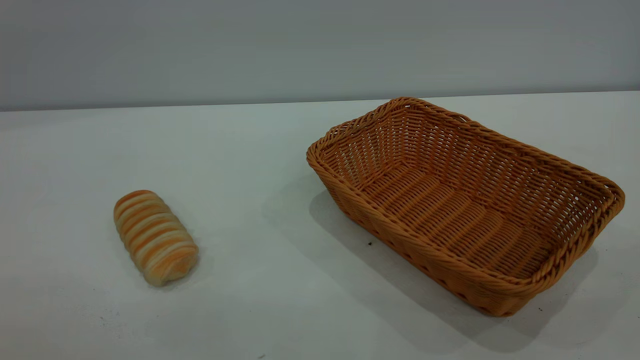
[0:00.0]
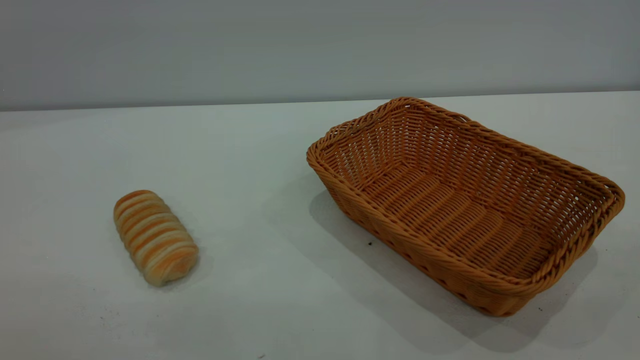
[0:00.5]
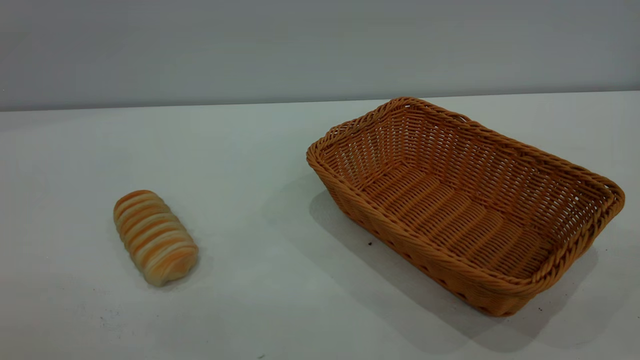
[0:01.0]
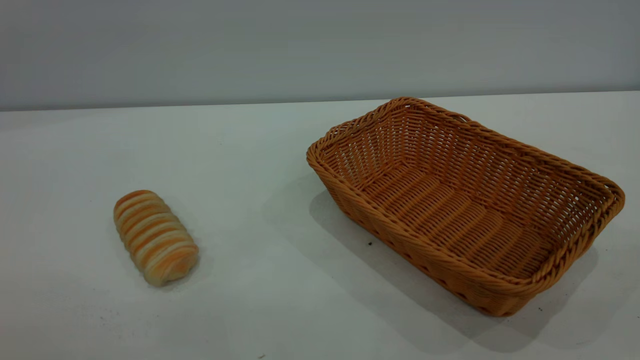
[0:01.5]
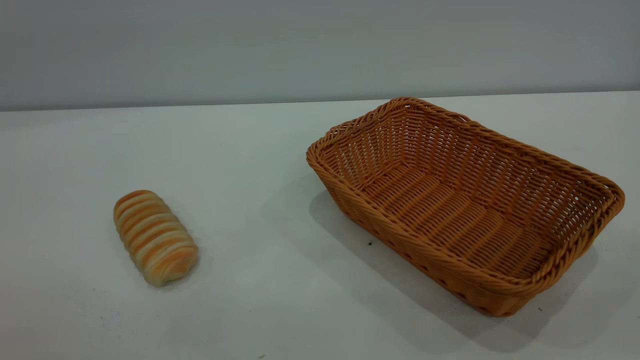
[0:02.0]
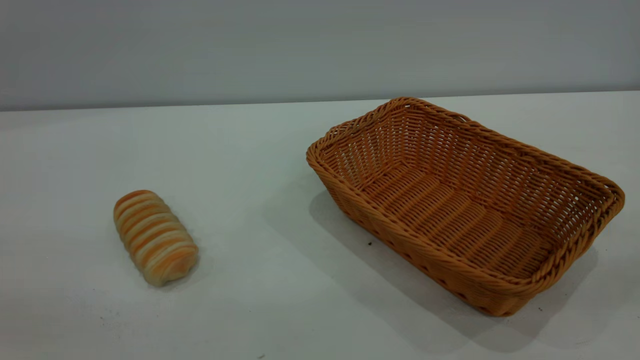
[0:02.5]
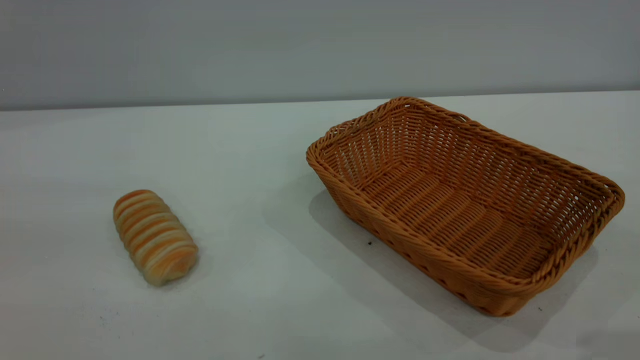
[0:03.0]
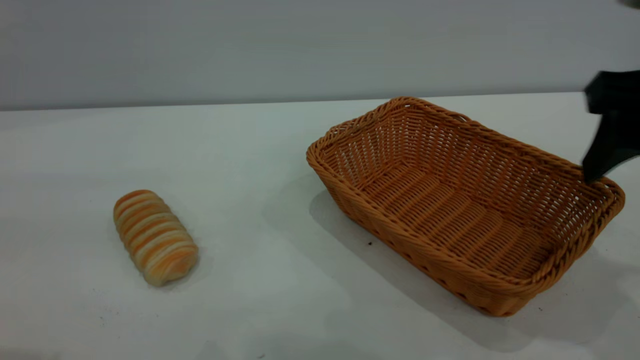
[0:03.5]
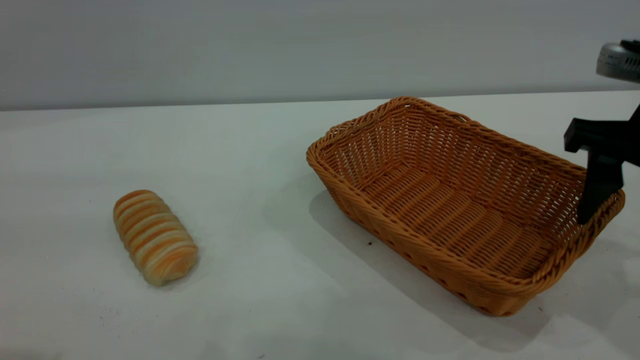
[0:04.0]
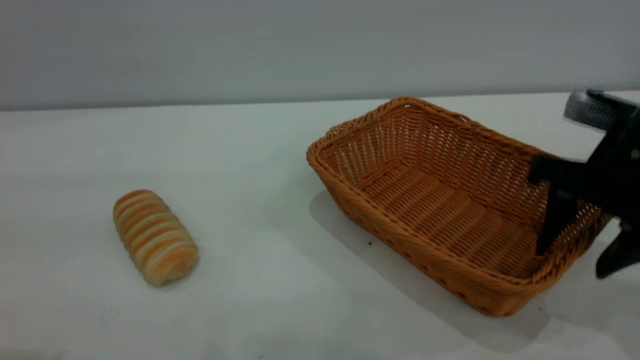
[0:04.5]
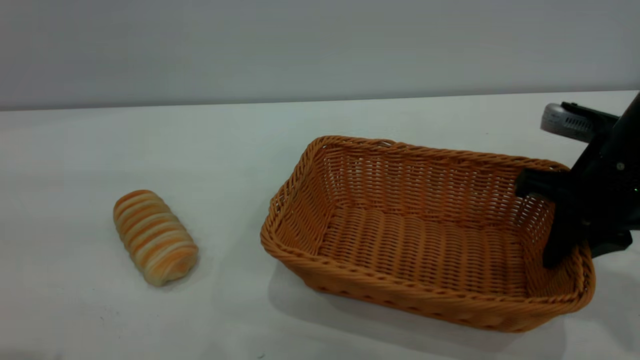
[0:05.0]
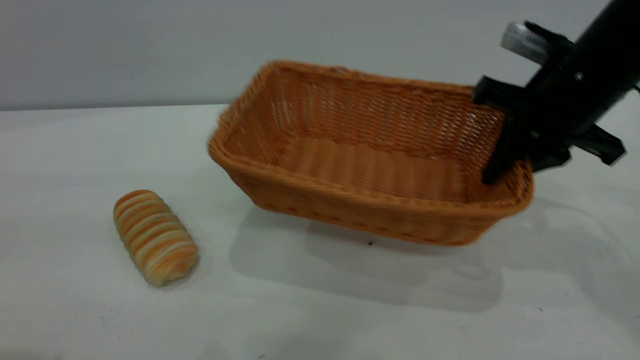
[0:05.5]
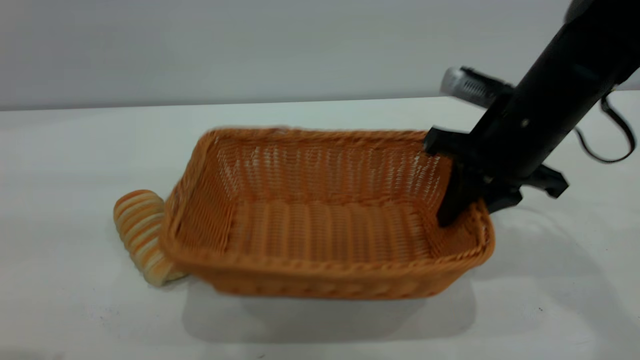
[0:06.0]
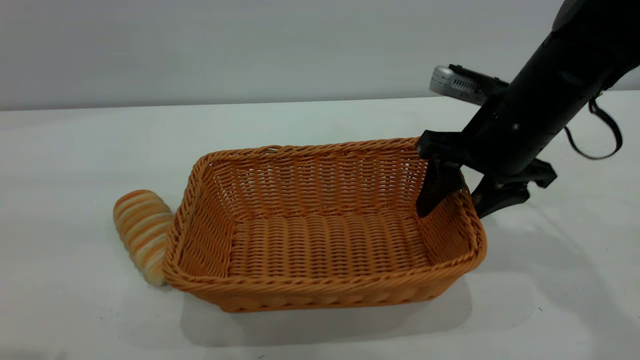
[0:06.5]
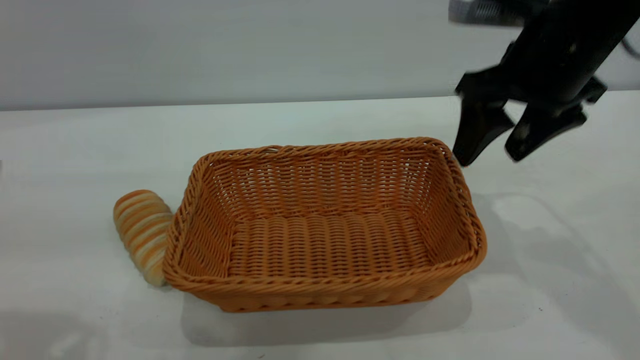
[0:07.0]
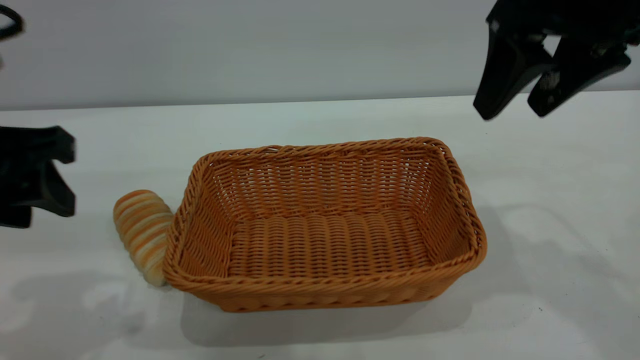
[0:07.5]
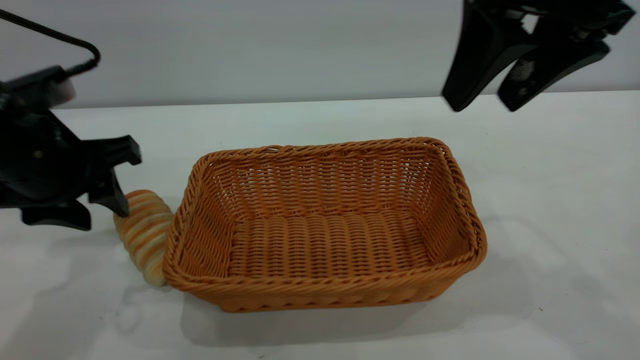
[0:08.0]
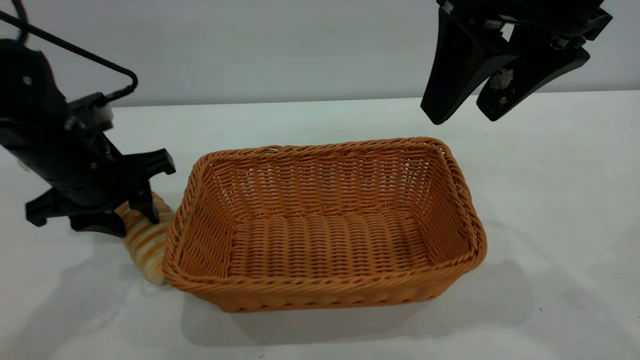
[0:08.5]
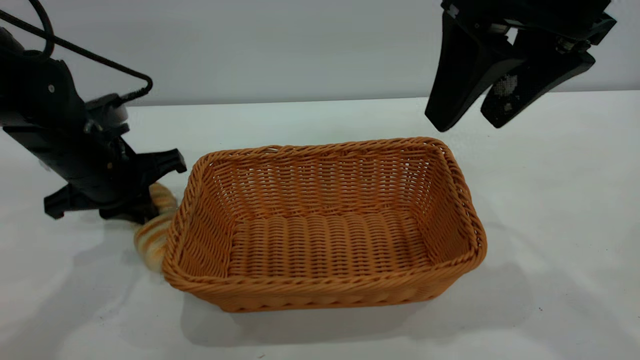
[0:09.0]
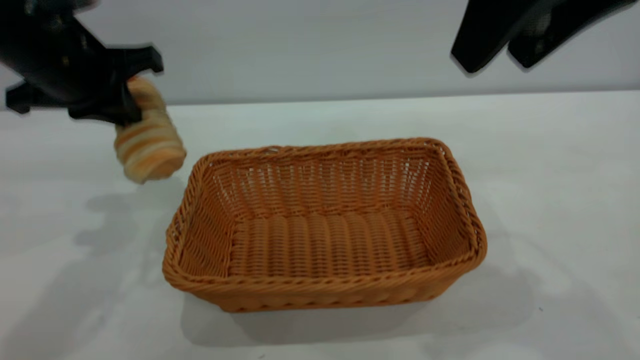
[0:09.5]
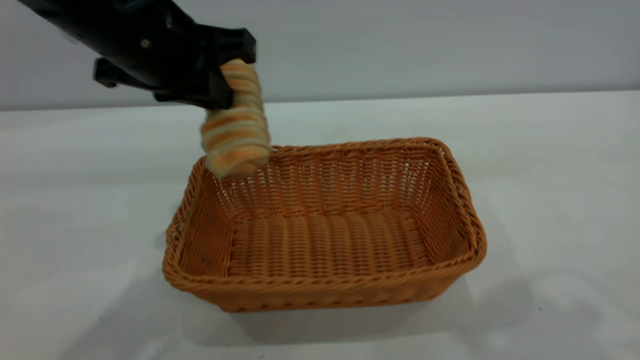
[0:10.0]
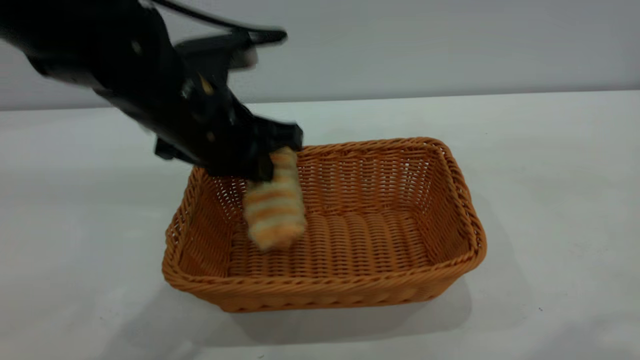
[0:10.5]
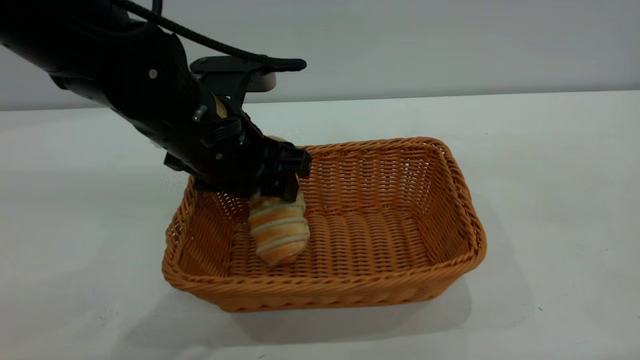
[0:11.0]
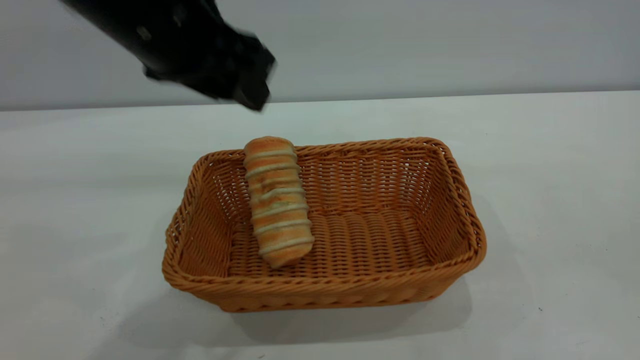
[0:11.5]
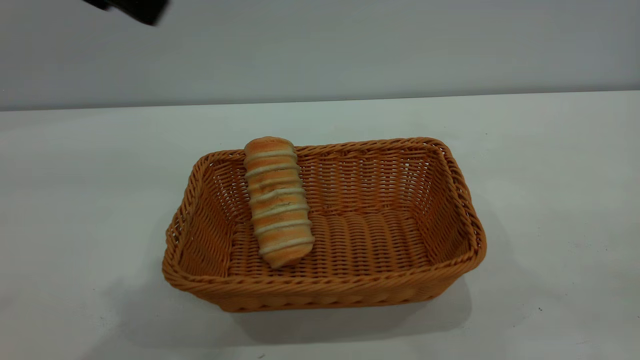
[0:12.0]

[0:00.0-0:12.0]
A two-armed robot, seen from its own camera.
Task of the whole recording: One hand grasps the yellow basket and places it in the middle of the table, while the other hand picks up the long bread and puts it into the yellow basket.
Step, 0:00.0 to 0:06.5: Move the basket to the center of view.
Step, 0:09.5 to 0:11.0: place the bread into the basket.
0:02.0 to 0:04.0: The right gripper heads forward and downward, covering approximately 30 cm.
0:04.0 to 0:06.0: The right gripper moves to the left, forward and downward, roughly 10 cm, and closes its fingers.
0:06.0 to 0:08.0: The left gripper shifts some 20 cm downward and forward; the right gripper goes about 15 cm upward, and opens up.
0:08.0 to 0:10.0: The left gripper goes roughly 15 cm to the right and upward, and closes; the right gripper is displaced upward and backward by some 15 cm.
0:10.0 to 0:12.0: The right gripper shifts some 20 cm backward, to the right and downward. The left gripper travels upward and backward by approximately 15 cm, and opens.

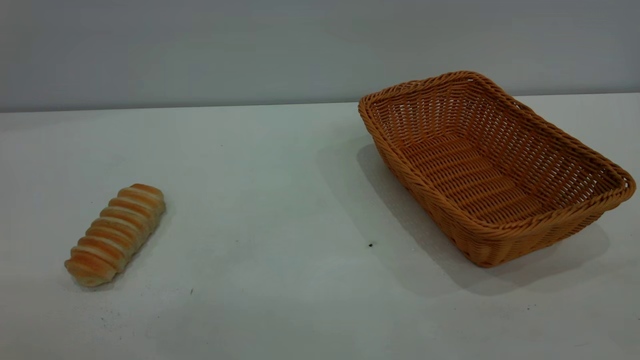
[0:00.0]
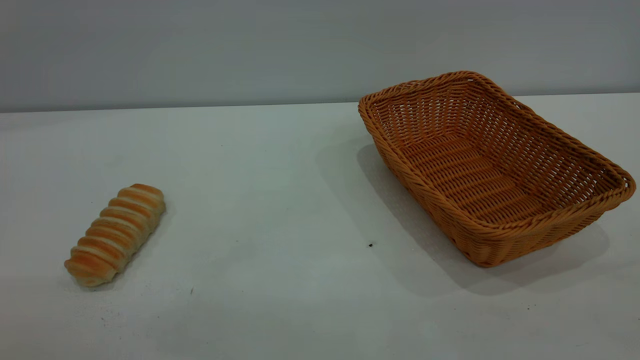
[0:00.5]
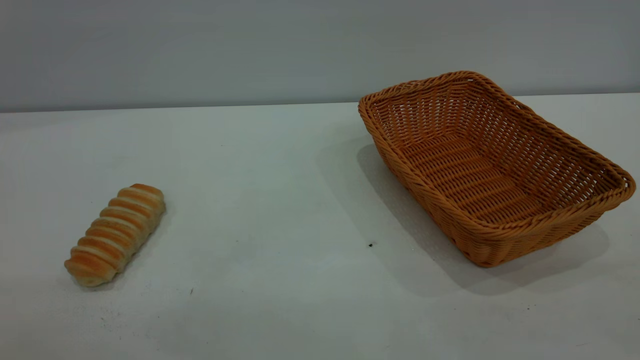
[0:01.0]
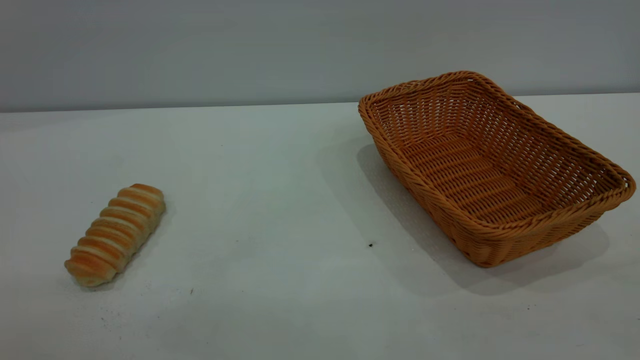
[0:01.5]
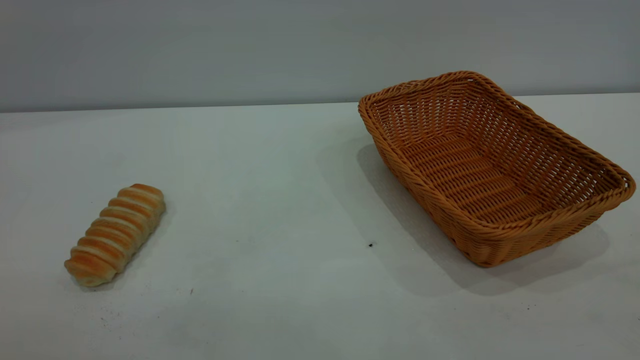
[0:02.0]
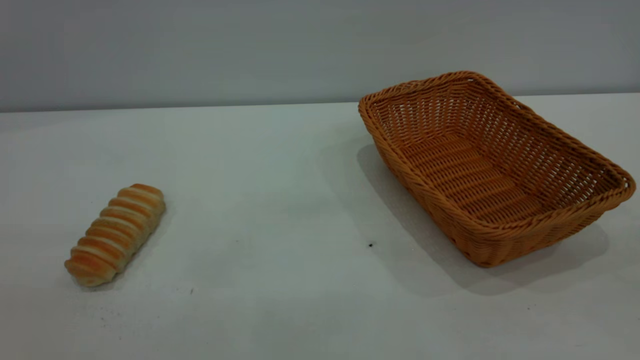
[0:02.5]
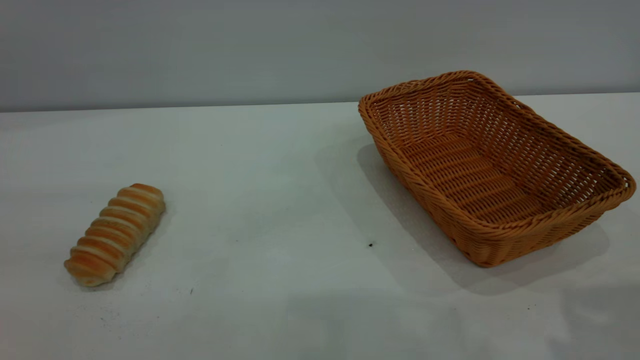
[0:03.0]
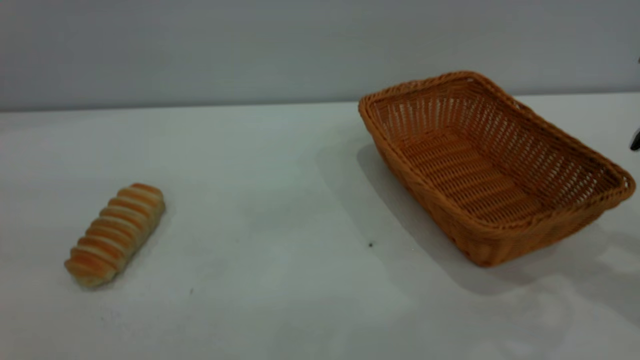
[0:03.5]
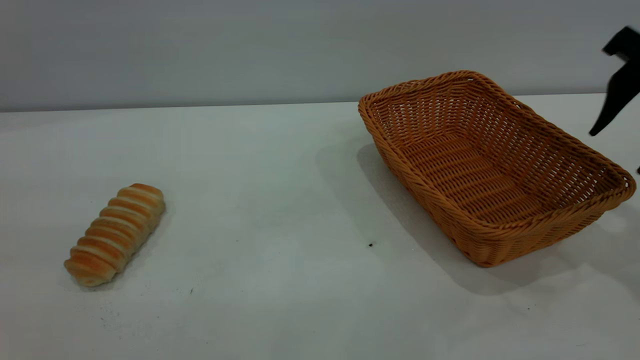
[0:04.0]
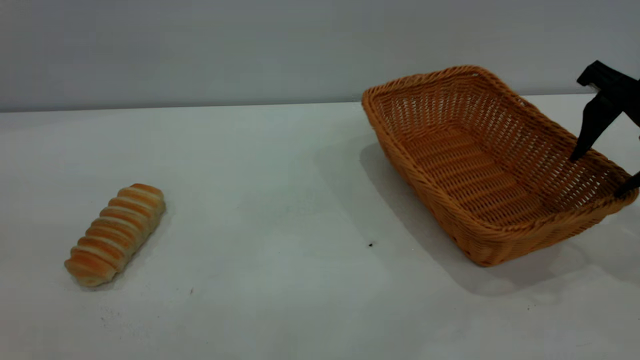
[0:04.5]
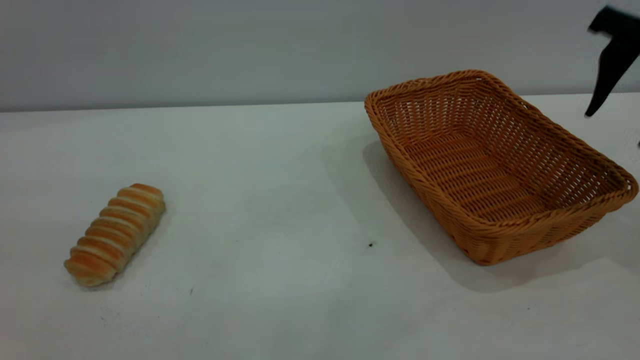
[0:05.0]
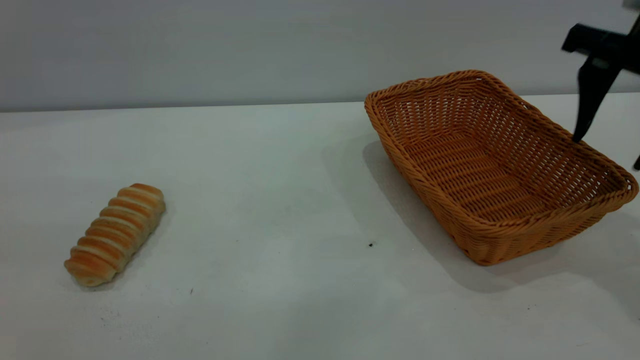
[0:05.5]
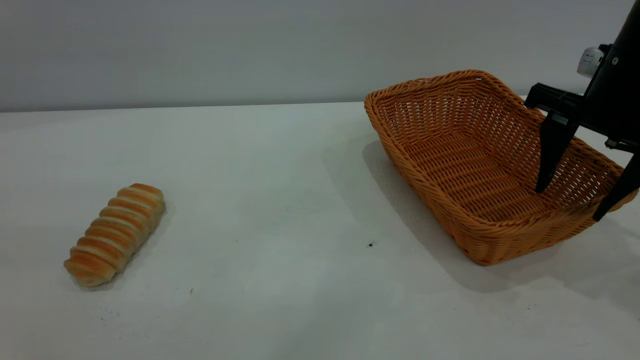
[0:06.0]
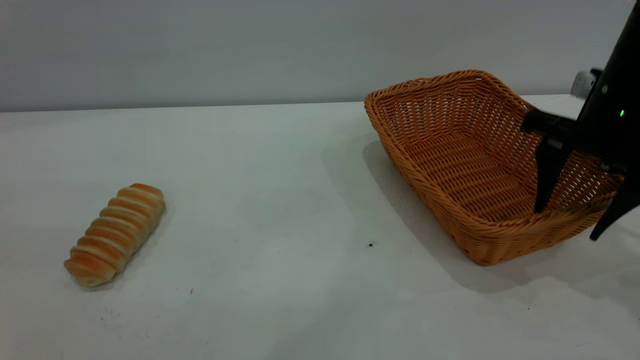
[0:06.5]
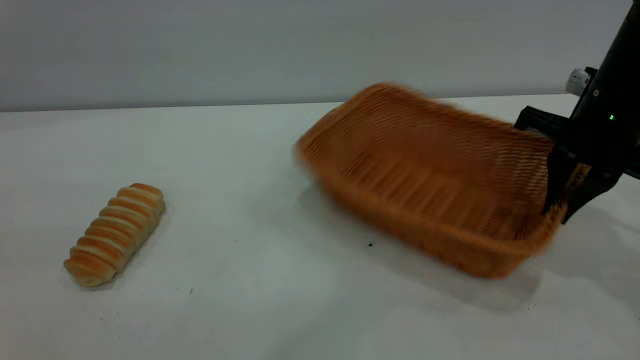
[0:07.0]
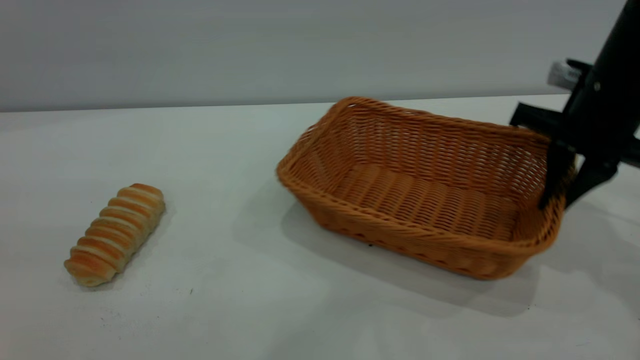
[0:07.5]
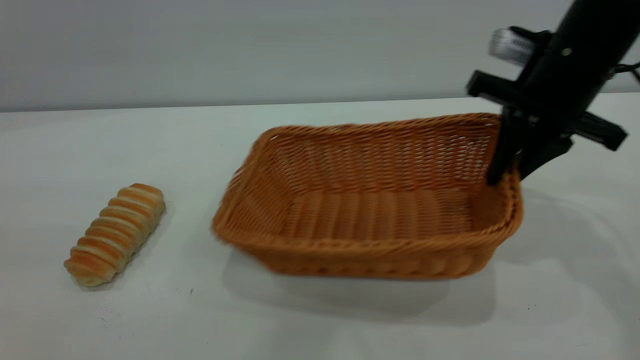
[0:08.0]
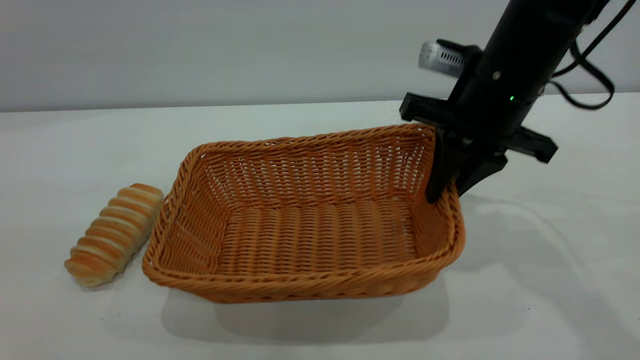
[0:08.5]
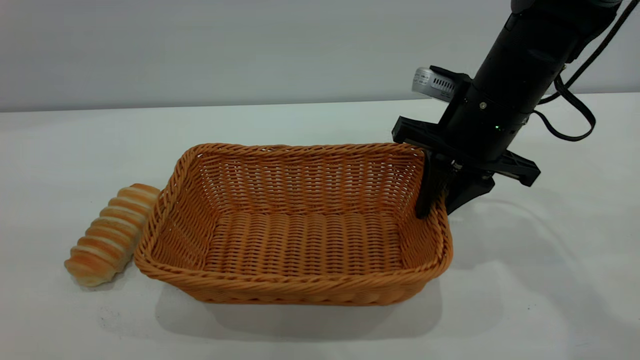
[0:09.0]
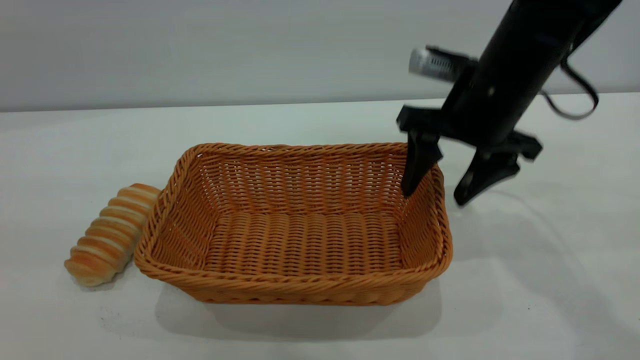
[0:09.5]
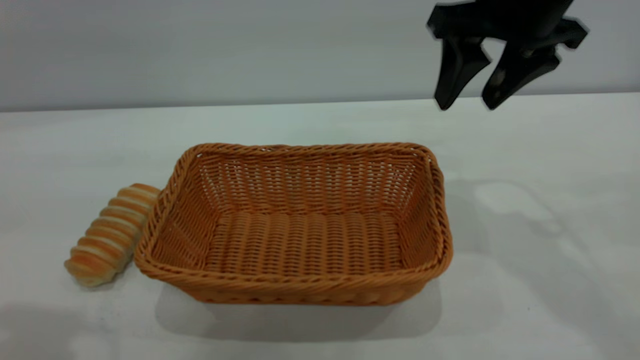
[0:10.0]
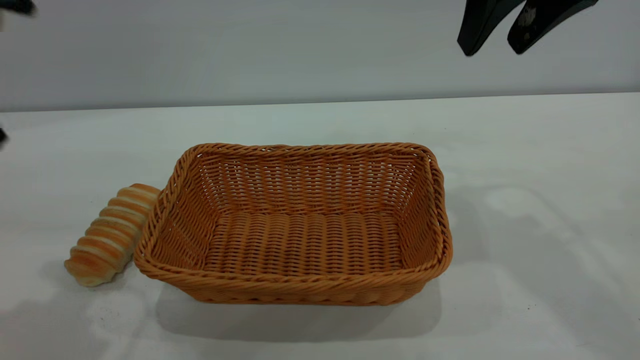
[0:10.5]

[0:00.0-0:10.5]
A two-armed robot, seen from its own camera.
Task of the whole recording: One hand grasps the yellow basket and places it in the middle of the table, while the other hand picks up the long bread and puts it into the yellow basket.
Step, 0:00.0 to 0:09.5: Move the basket to the center of view.
0:02.0 to 0:04.0: The right gripper is displaced forward by roughly 35 cm.
0:04.0 to 0:06.5: The right gripper shifts about 5 cm downward and to the left.
0:06.5 to 0:08.5: The right gripper moves to the left, approximately 10 cm, and closes up.
0:08.5 to 0:10.5: The right gripper travels upward by approximately 15 cm, and opens its fingers. Meanwhile the left gripper is displaced forward and downward by roughly 20 cm.
